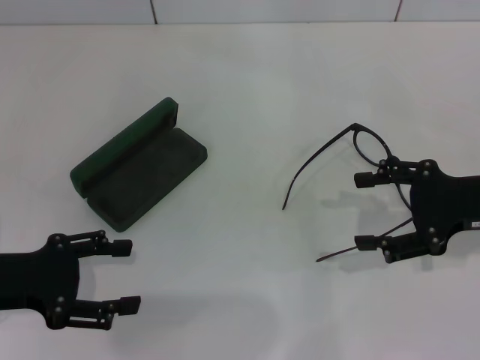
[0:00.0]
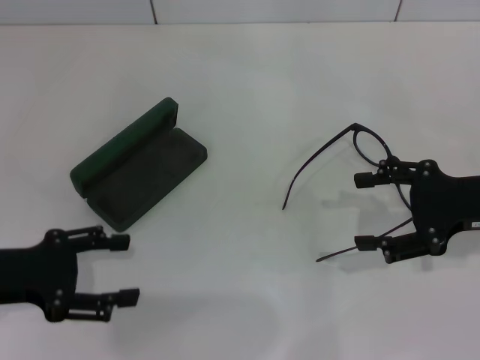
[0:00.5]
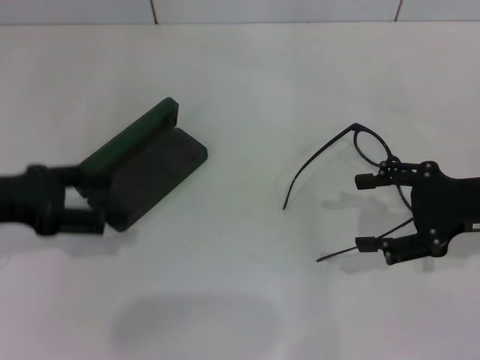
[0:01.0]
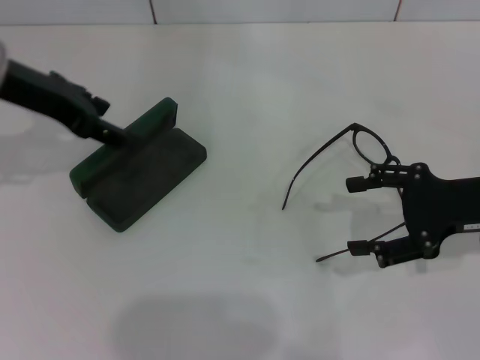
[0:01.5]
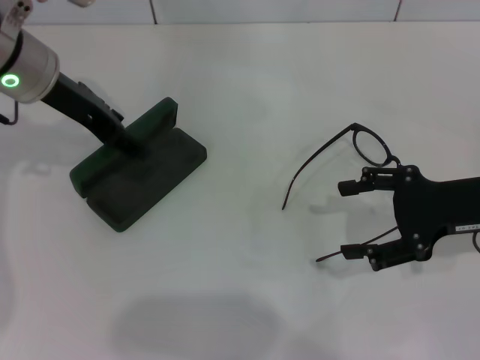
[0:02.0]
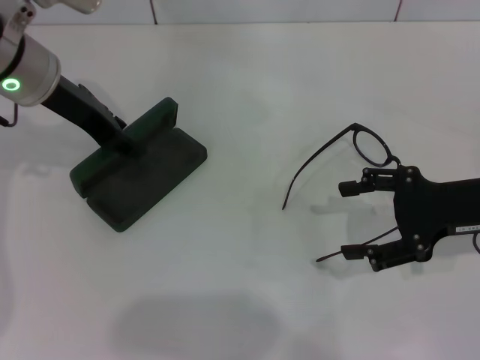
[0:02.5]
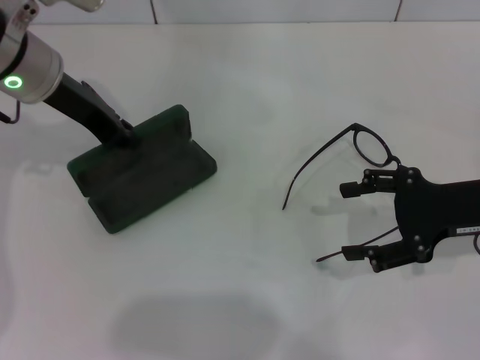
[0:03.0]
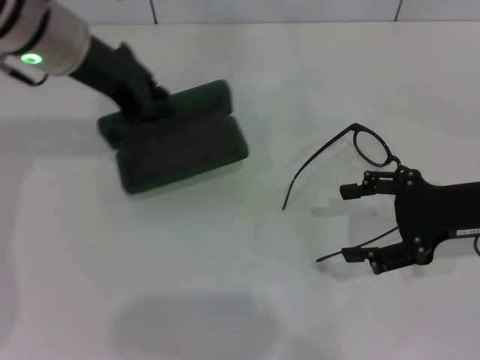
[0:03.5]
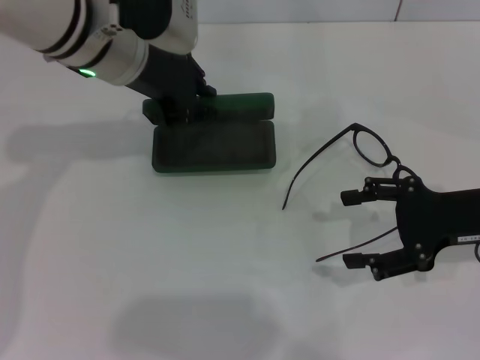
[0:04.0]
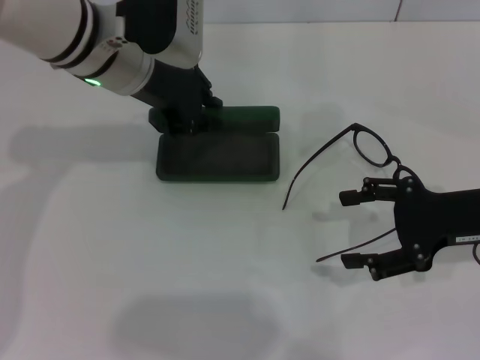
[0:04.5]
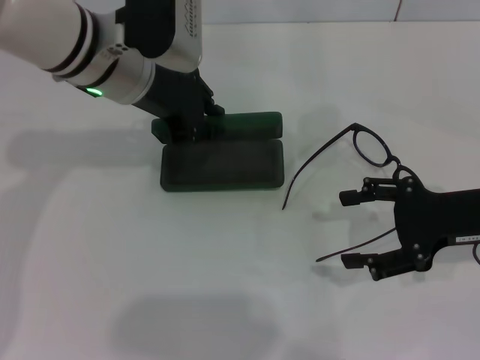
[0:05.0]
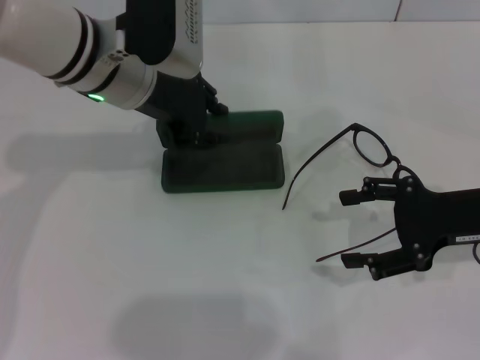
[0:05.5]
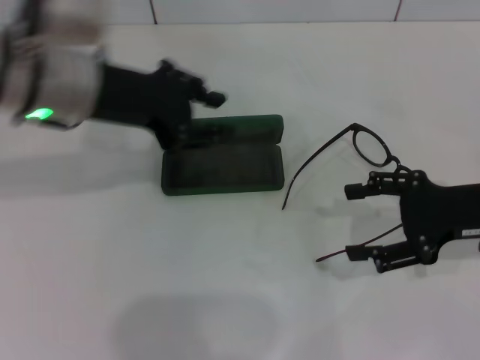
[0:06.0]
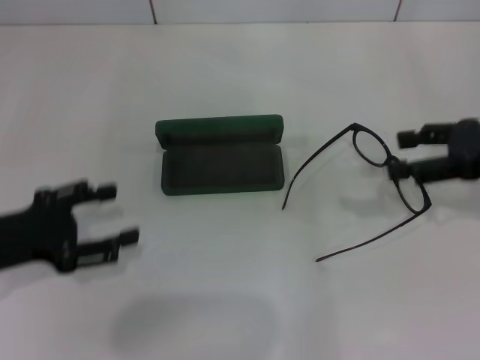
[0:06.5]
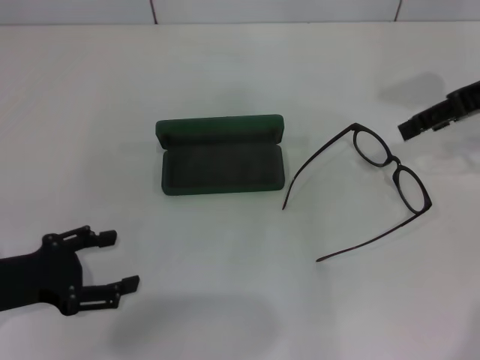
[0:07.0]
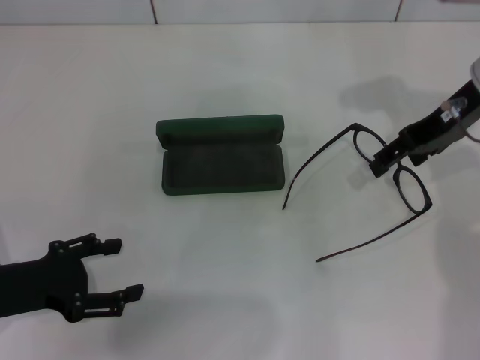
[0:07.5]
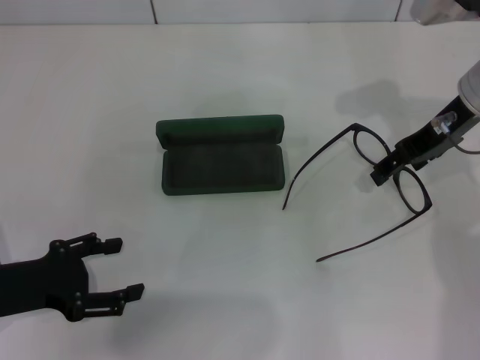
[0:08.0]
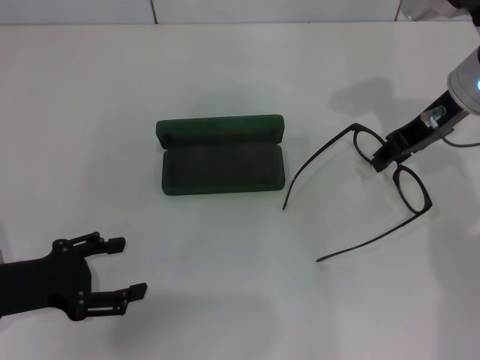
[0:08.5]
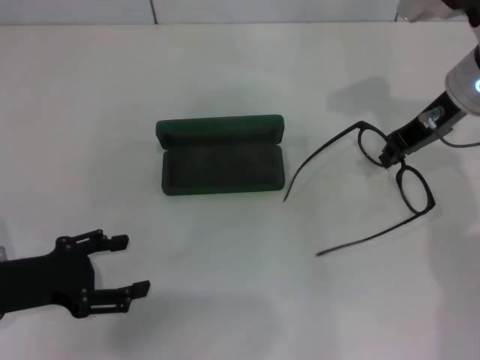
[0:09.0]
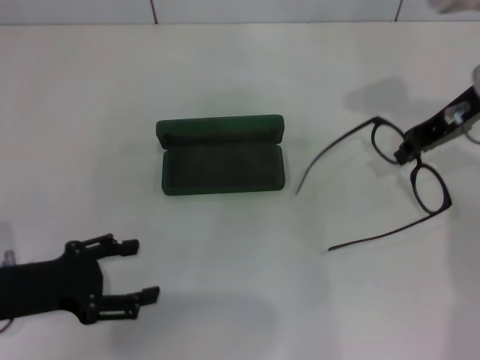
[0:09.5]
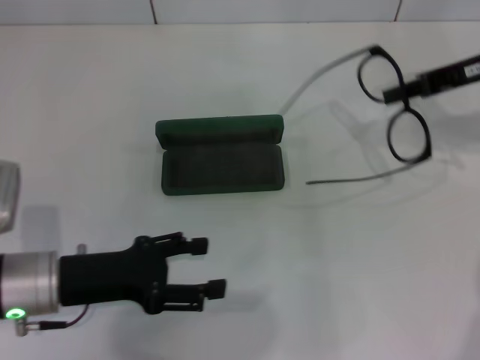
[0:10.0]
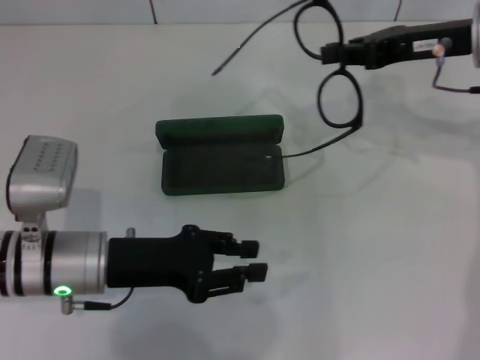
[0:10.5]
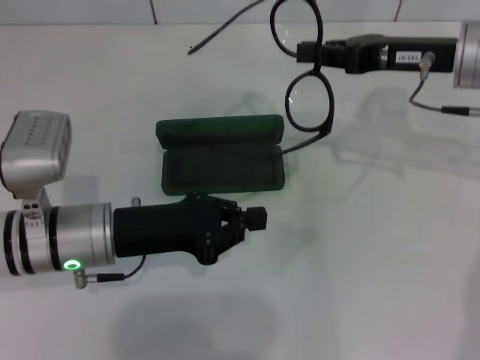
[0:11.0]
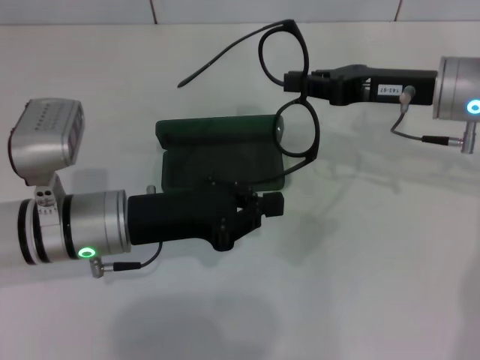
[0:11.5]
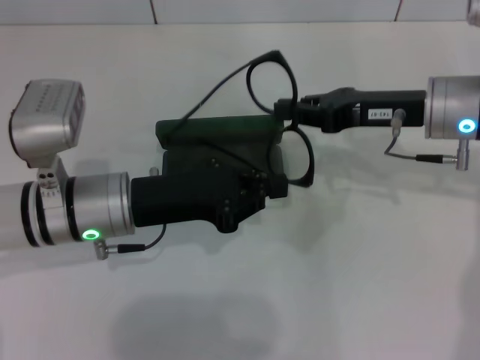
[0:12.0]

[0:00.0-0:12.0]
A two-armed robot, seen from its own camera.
Step, 0:00.0 to 0:03.0: Grab the glasses case with your left hand.
Step, 0:03.5 to 0:05.5: Place the glasses case in the center of the table with your left hand.
Step, 0:06.0 to 0:09.0: Grab the eyeglass frame with your right hand.
0:00.0 to 0:02.0: The left gripper moves forward, upward and to the right, about 20 cm.
0:02.0 to 0:04.0: The left gripper shifts approximately 10 cm to the right, and closes up.
0:04.0 to 0:06.0: The left gripper moves backward, some 5 cm.
0:06.0 to 0:08.0: The right gripper travels forward, to the left and upward by some 15 cm. Meanwhile the left gripper shifts roughly 20 cm downward, backward and to the left, and opens up.
0:08.0 to 0:10.0: The two grippers go some 5 cm to the right. The right gripper closes.
0:10.0 to 0:12.0: The right gripper shifts some 10 cm to the left and downward; the left gripper travels to the right and forward by about 10 cm, and closes.

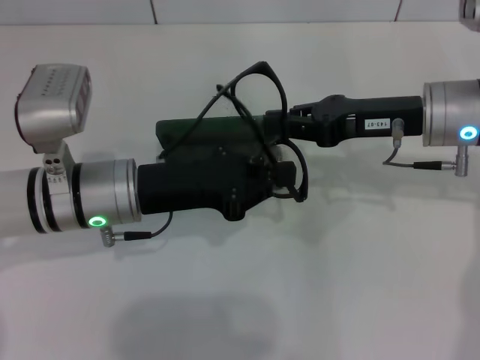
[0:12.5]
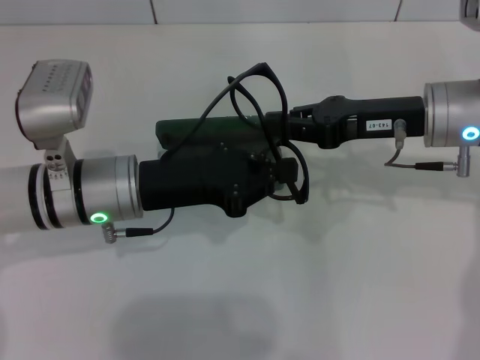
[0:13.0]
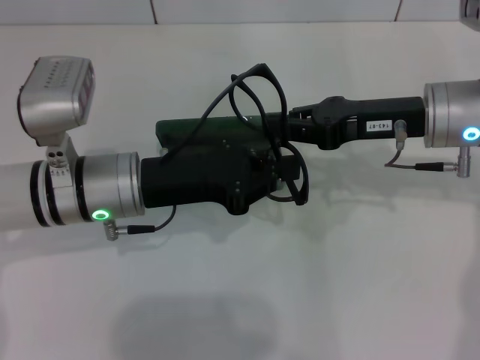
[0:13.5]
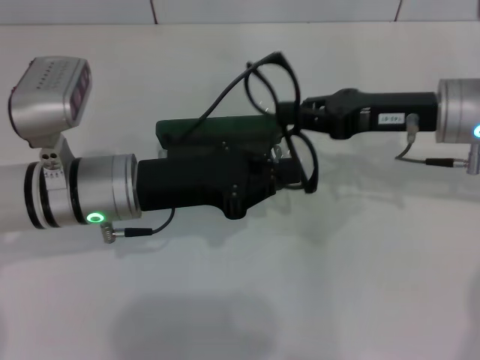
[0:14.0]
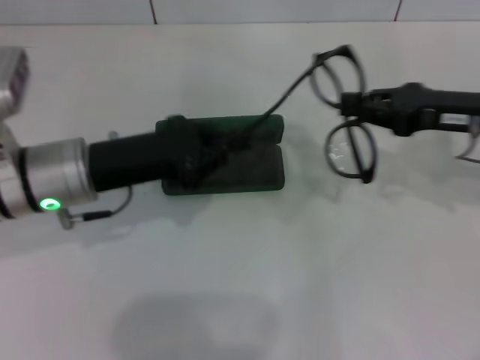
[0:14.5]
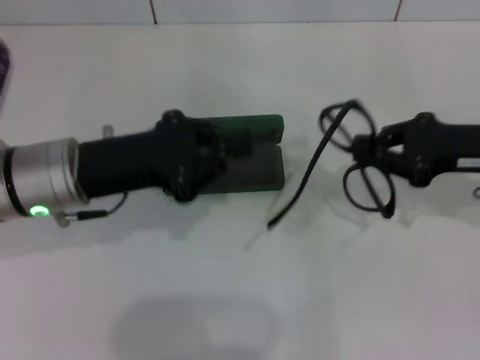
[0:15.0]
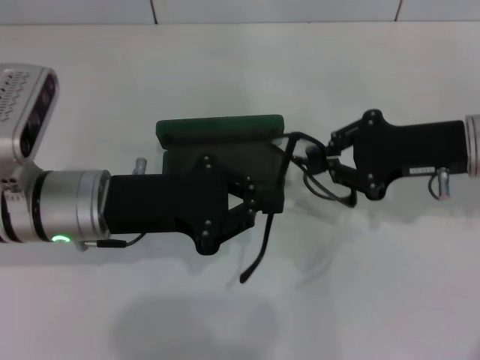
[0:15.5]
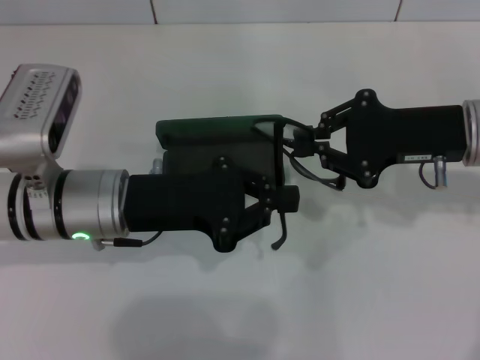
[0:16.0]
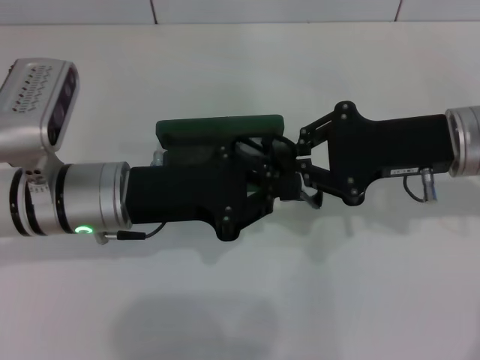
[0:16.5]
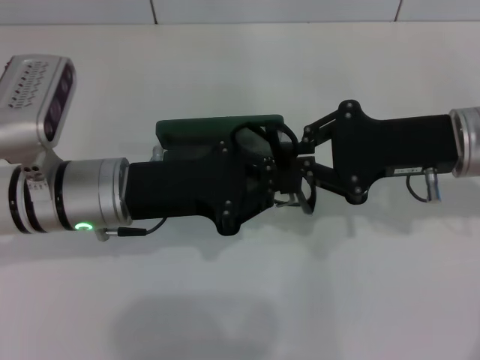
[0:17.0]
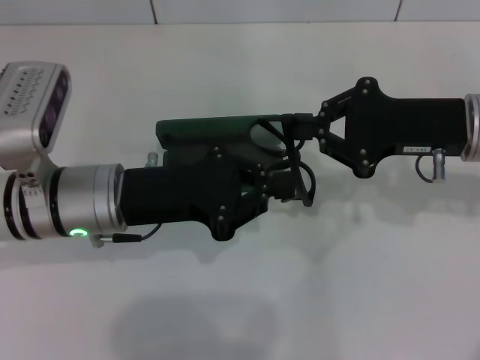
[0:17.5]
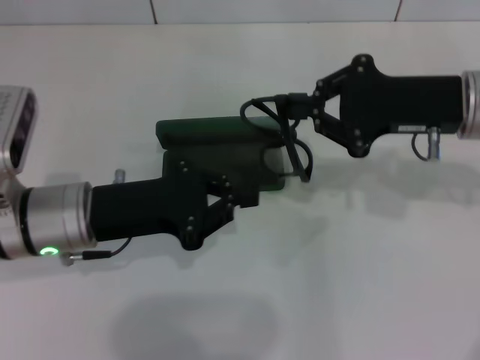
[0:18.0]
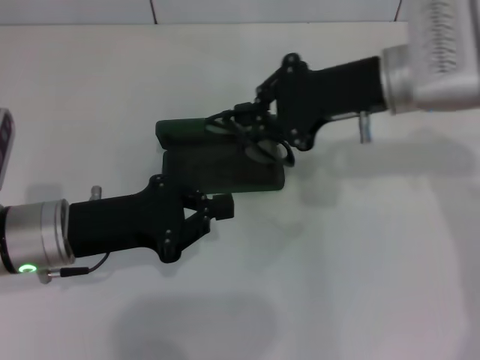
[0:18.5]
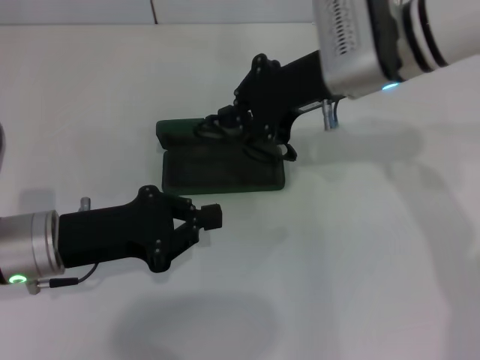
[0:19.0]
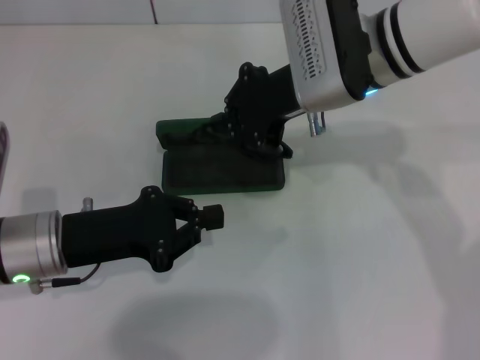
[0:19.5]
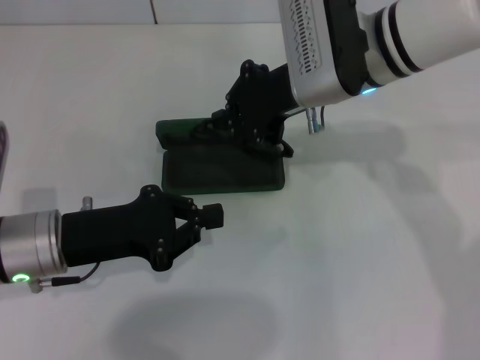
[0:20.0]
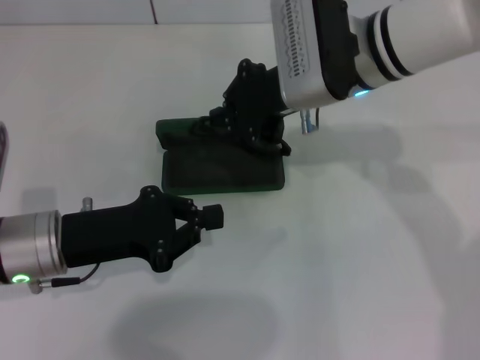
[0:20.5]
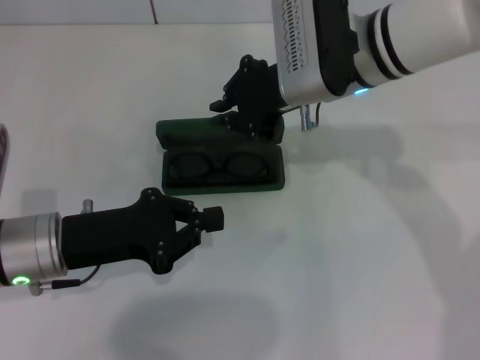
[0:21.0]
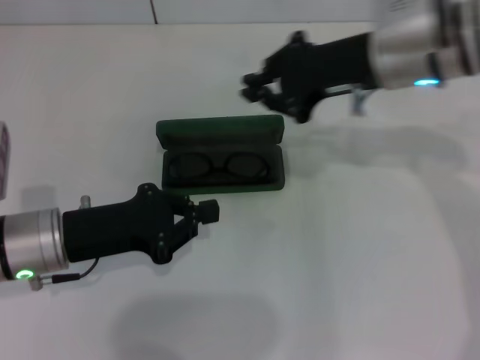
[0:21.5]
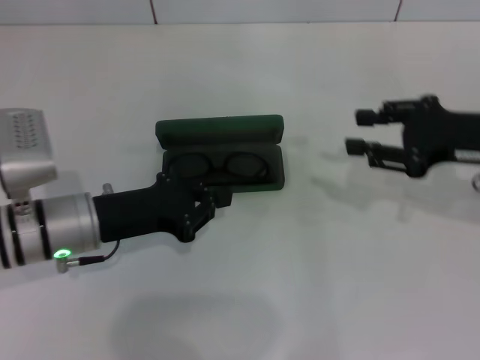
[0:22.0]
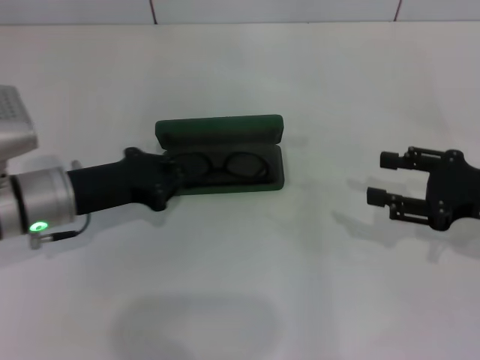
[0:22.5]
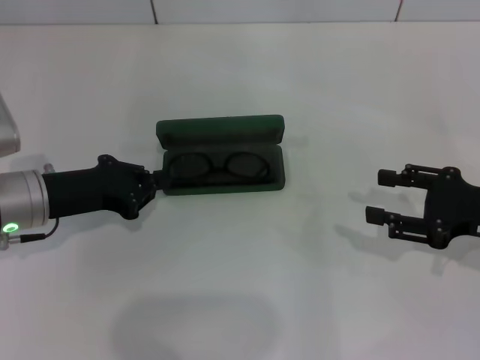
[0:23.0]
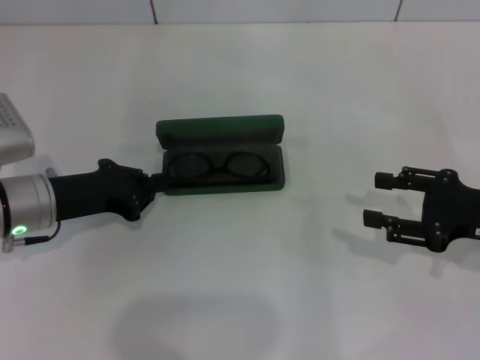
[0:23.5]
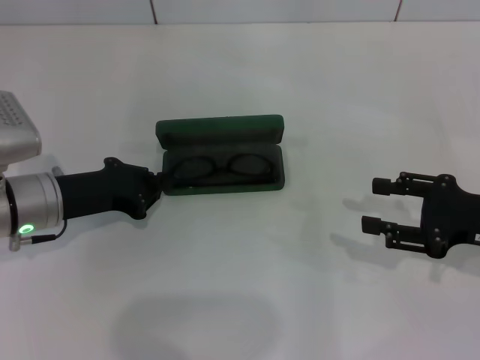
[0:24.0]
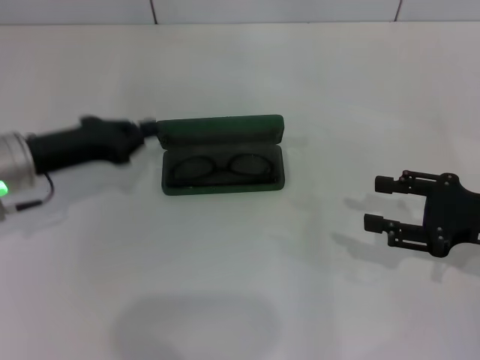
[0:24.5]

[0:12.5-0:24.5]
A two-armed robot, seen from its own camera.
Step, 0:12.5 to 0:17.0: Lift the glasses with your right hand.
Step, 0:17.5 to 0:20.5: Put the glasses into the case with your right hand.
0:12.5 to 0:14.5: The right gripper goes approximately 5 cm to the right.
0:14.5 to 0:16.5: The right gripper shifts approximately 5 cm to the left.
0:16.5 to 0:18.5: Both grippers move to the left, some 5 cm.
0:18.5 to 0:20.5: The right gripper goes some 5 cm to the left.
0:20.5 to 0:22.5: The right gripper shifts approximately 25 cm to the right, backward and downward, and opens.
0:22.5 to 0:24.5: The grippers make only small movements.

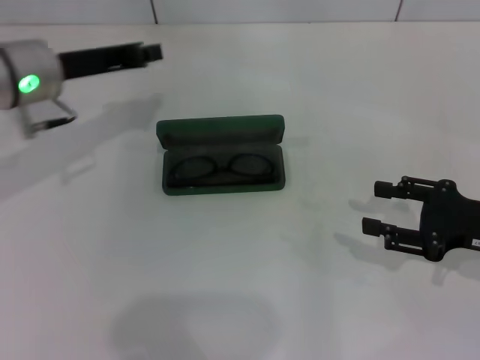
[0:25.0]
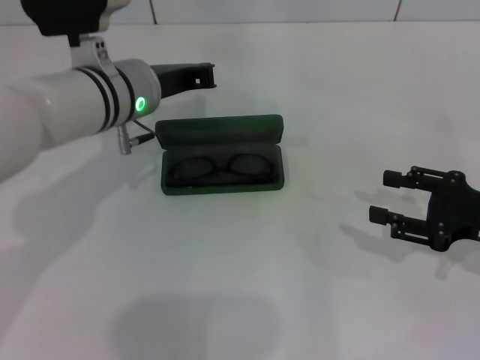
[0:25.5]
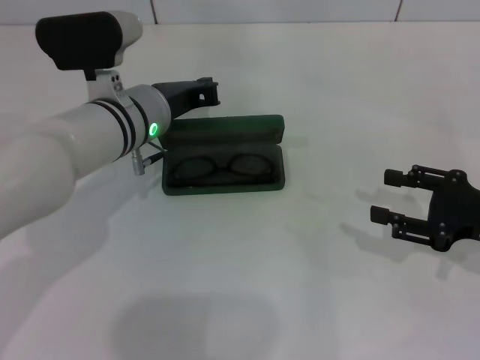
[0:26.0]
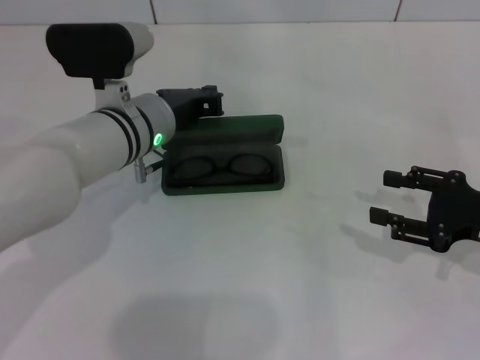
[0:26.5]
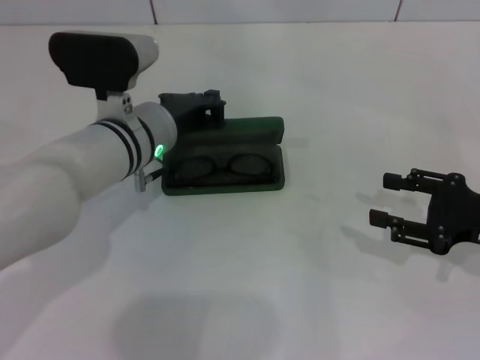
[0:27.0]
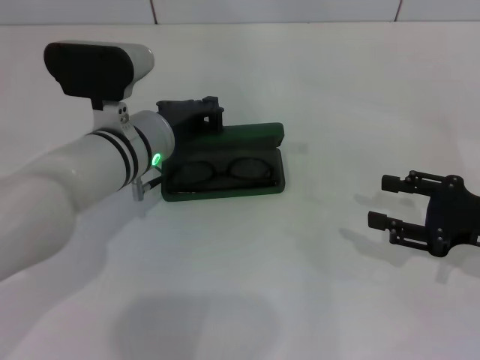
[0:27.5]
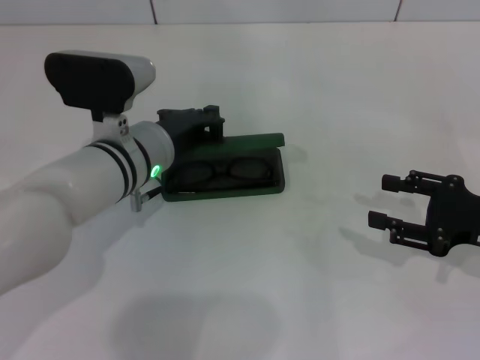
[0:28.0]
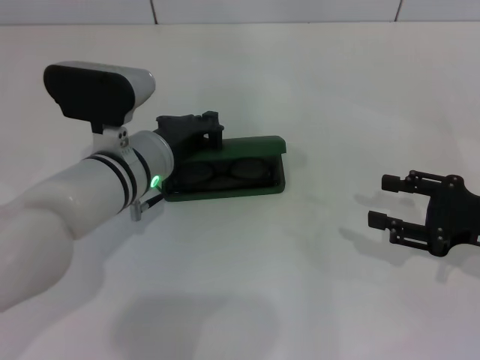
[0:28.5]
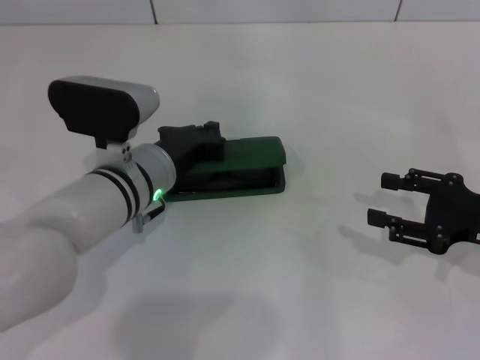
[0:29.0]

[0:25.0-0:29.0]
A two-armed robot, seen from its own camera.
0:25.0 to 0:27.0: The left gripper goes about 10 cm to the right and downward.
0:27.0 to 0:29.0: There are only small adjustments of the grippers.
